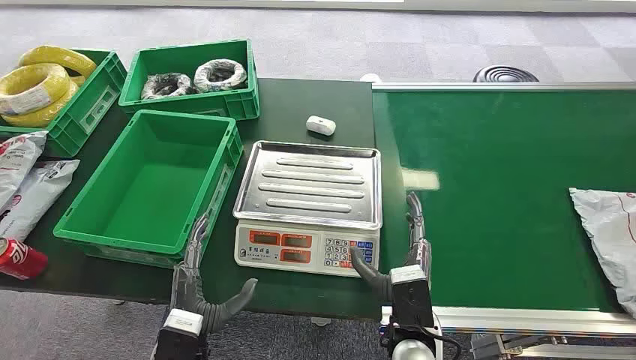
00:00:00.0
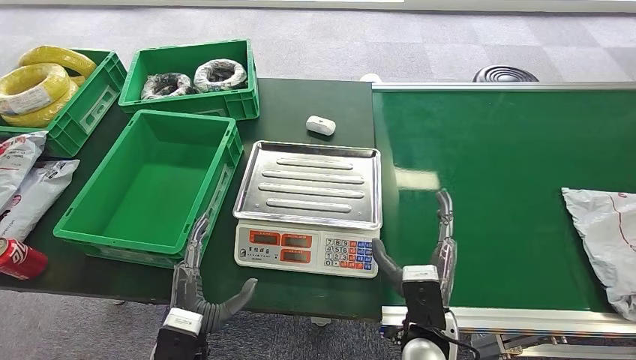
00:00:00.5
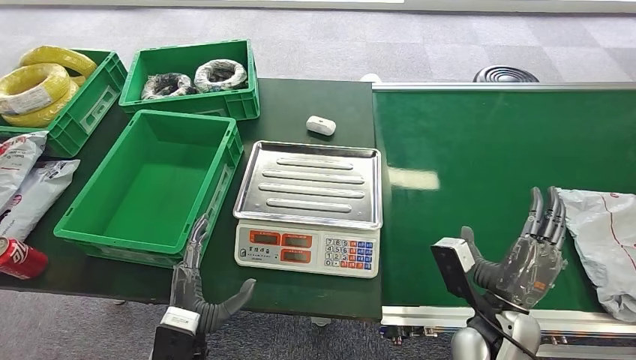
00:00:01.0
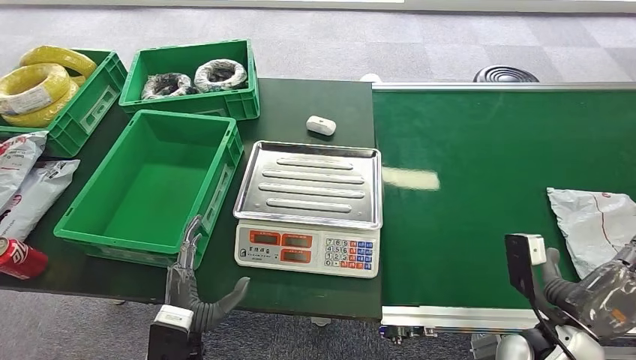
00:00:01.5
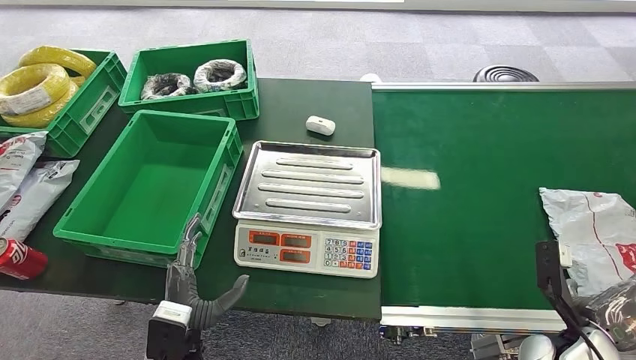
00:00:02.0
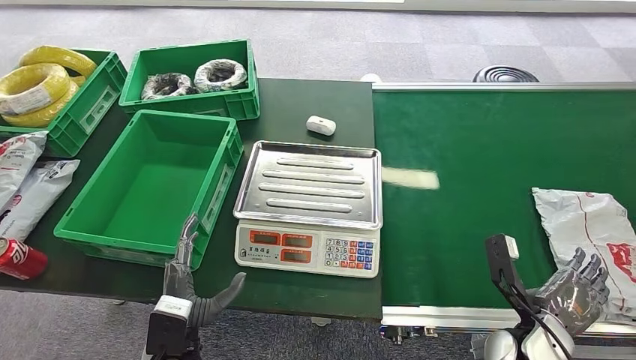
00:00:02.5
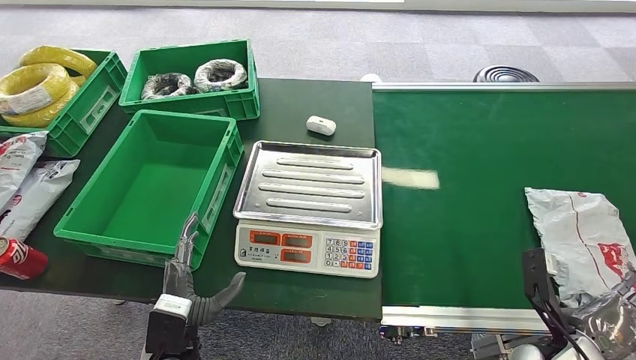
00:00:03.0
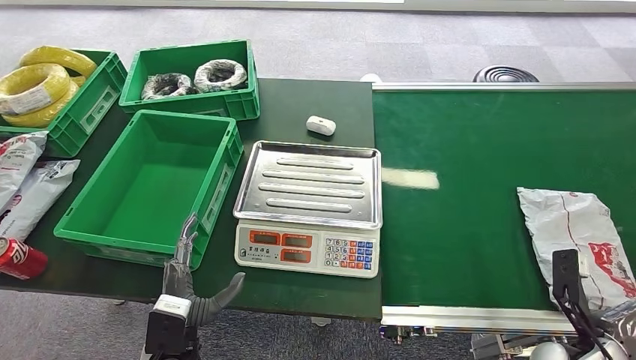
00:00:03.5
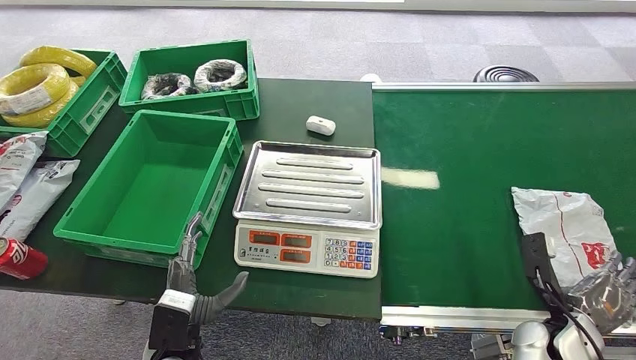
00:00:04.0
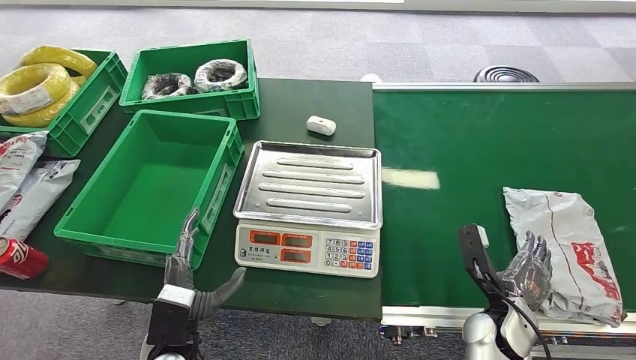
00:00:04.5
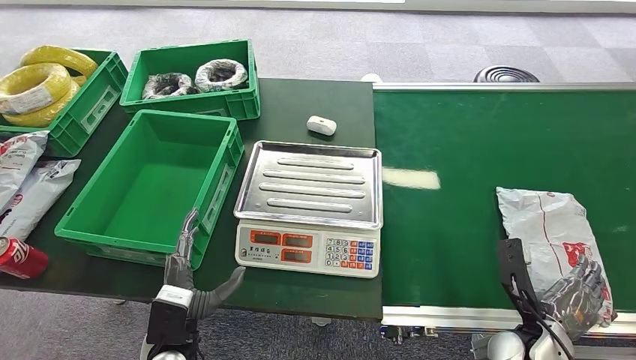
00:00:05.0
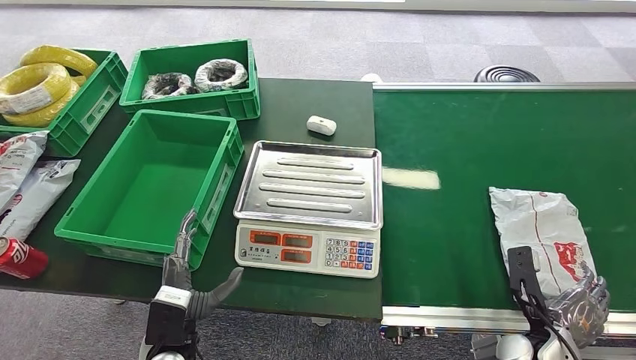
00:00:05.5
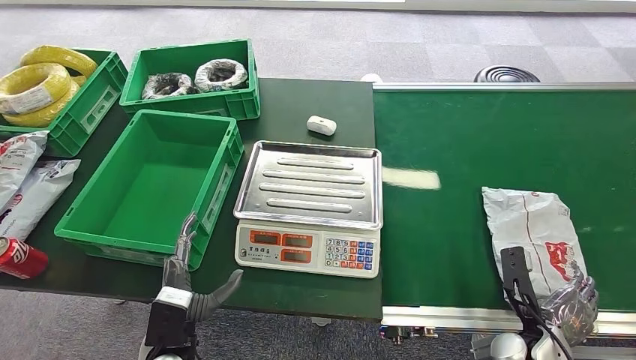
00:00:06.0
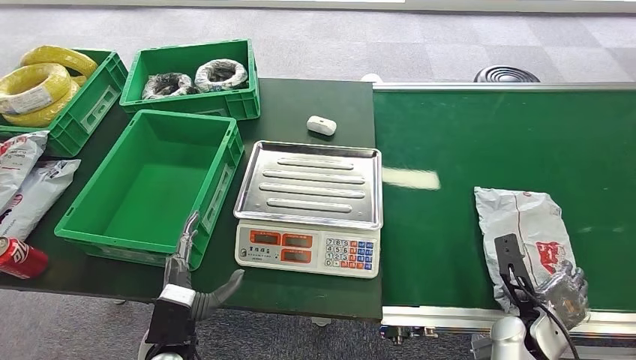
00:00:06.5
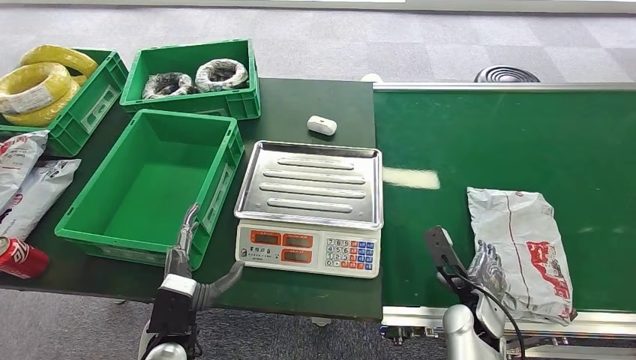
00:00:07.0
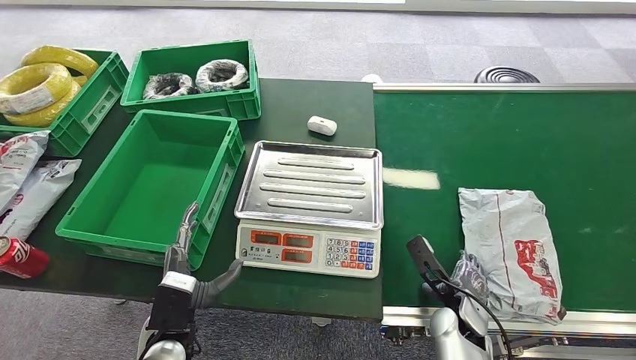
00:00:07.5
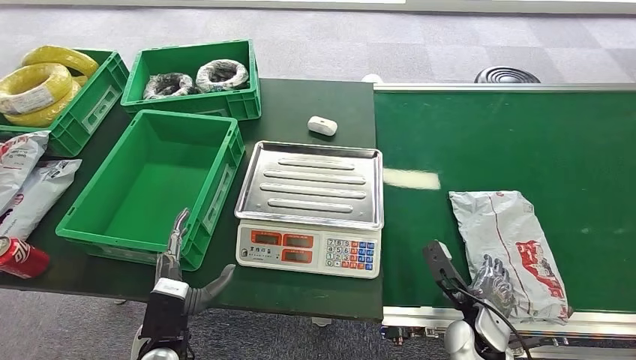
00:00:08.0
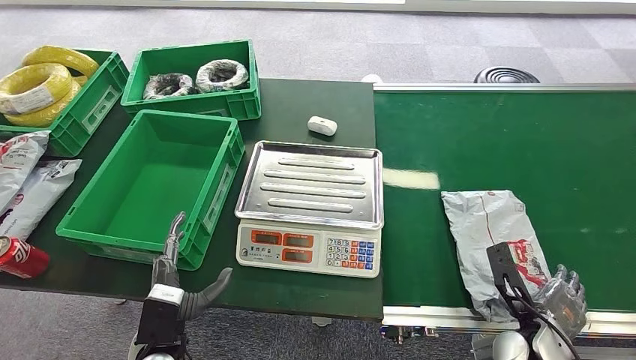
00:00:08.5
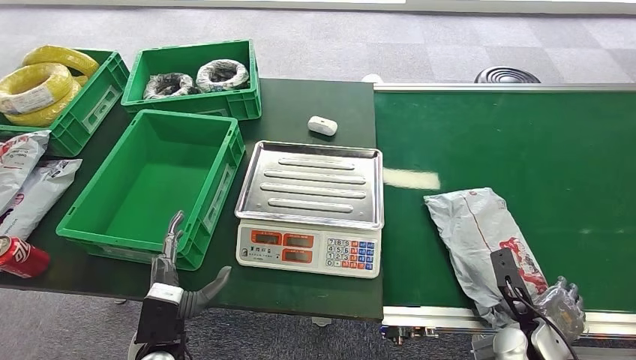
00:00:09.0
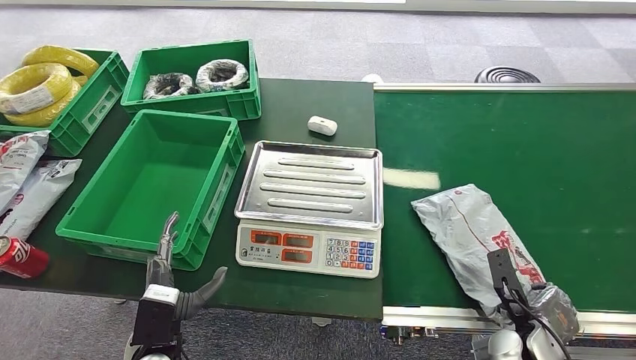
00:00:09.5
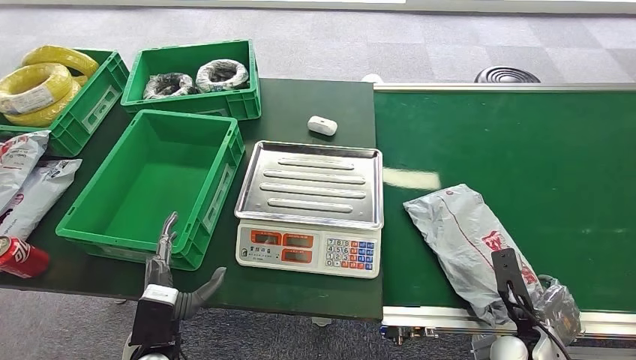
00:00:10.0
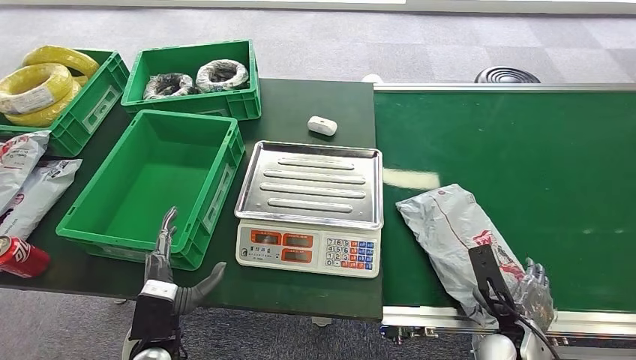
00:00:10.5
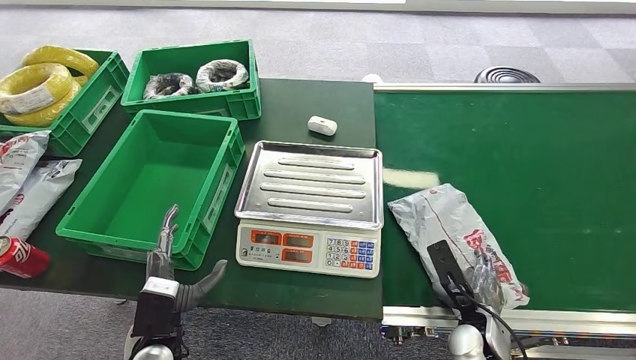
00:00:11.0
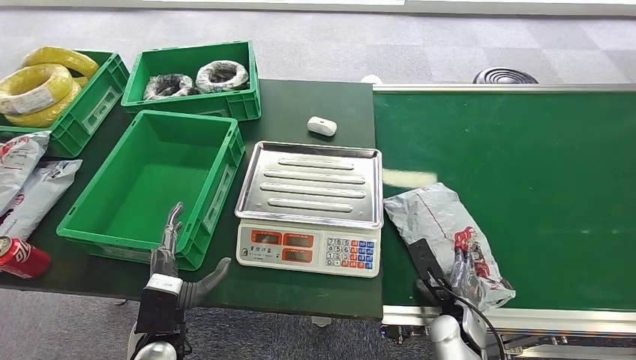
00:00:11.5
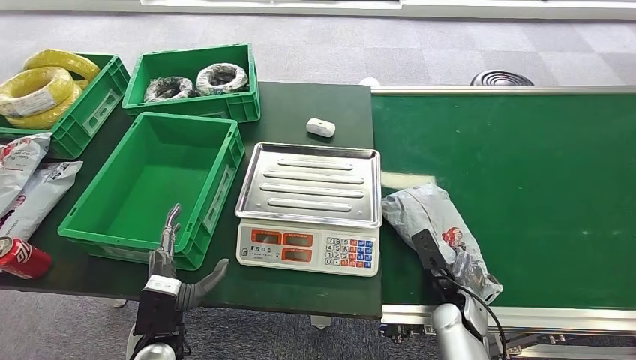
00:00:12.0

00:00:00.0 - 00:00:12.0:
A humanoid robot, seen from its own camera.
00:00:02.0 - 00:00:04.0: The right hand reaches approximately 5 cm to the left, then returns.
00:00:04.0 - 00:00:06.0: The right hand travels to the left and back again, some 10 cm each way.
00:00:06.0 - 00:00:08.0: The right hand goes approximately 10 cm to the left.
00:00:08.0 - 00:00:10.0: The right hand goes approximately 10 cm to the right.

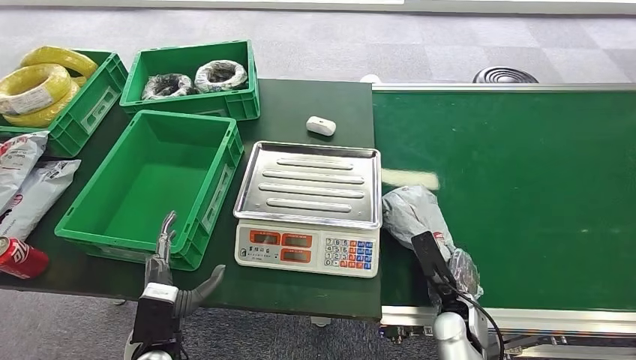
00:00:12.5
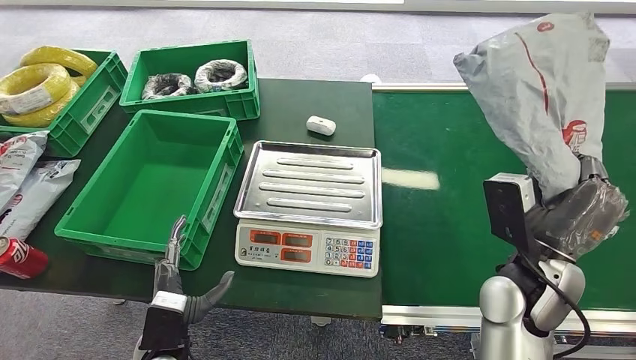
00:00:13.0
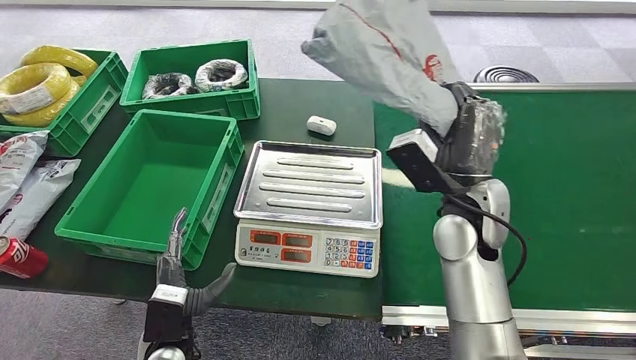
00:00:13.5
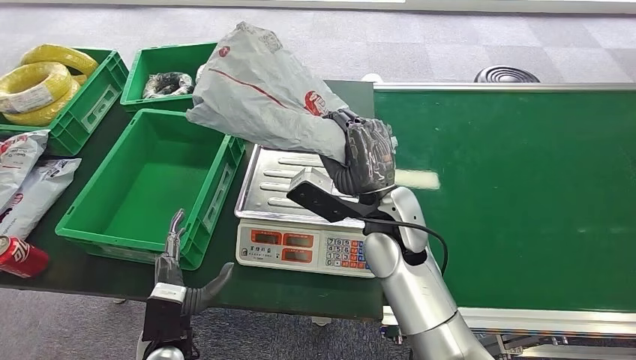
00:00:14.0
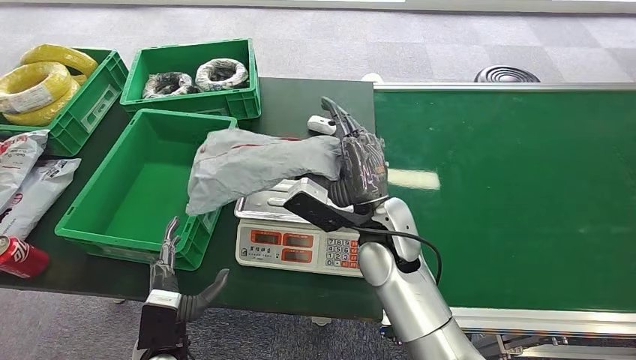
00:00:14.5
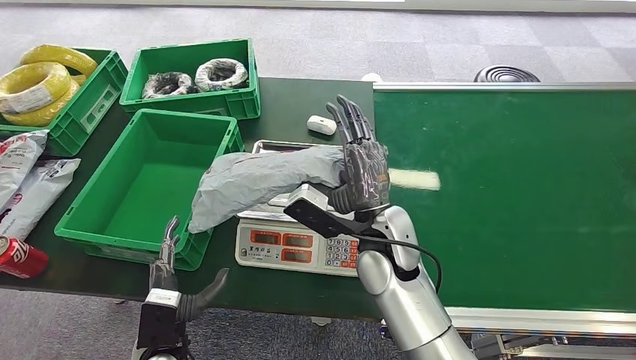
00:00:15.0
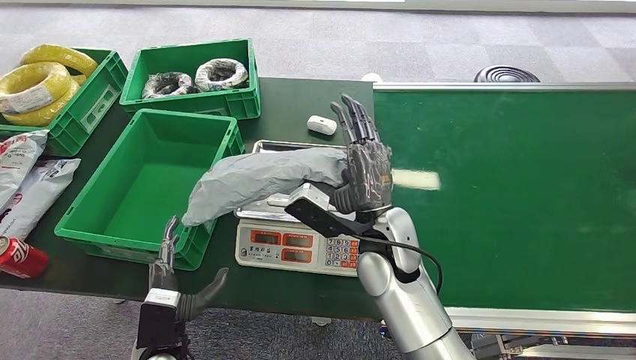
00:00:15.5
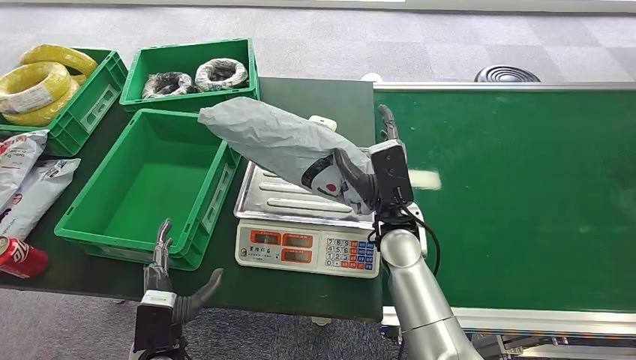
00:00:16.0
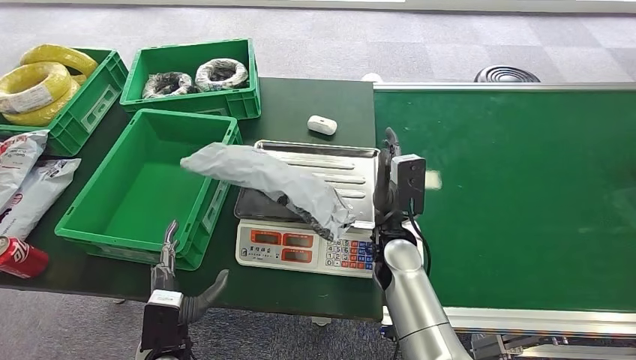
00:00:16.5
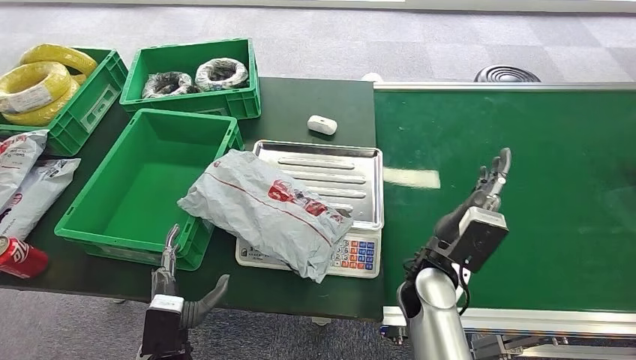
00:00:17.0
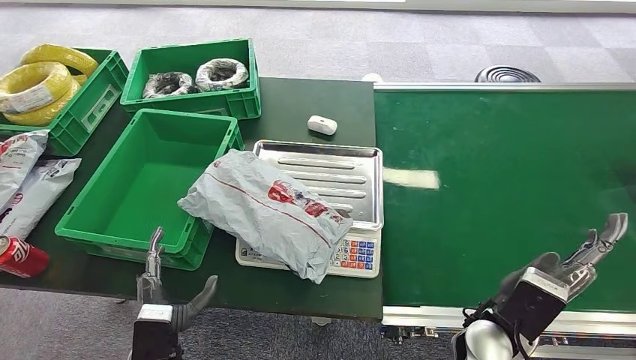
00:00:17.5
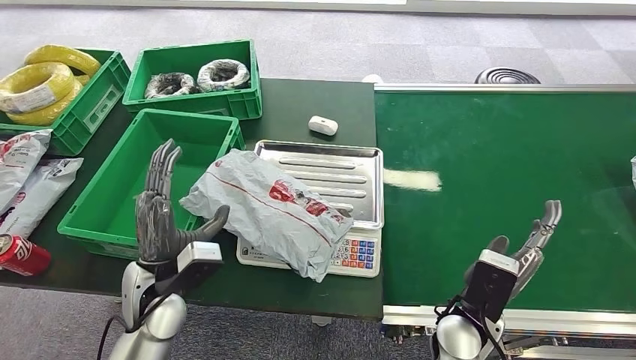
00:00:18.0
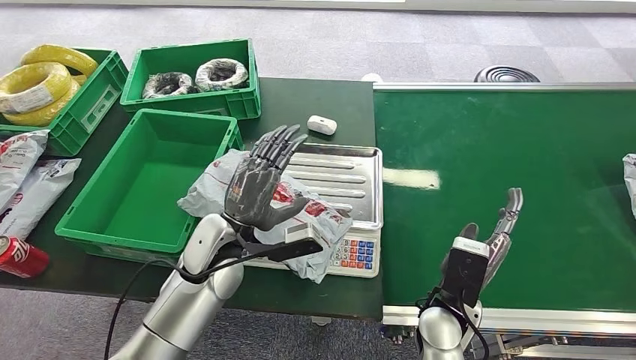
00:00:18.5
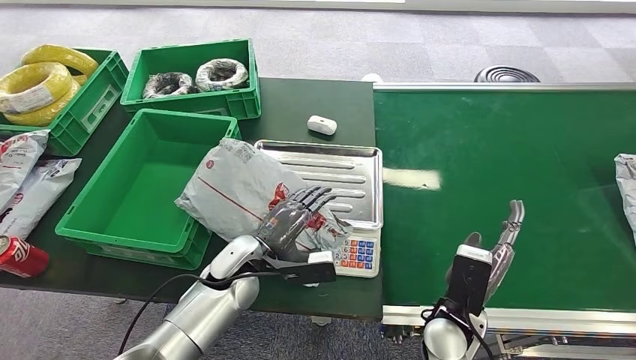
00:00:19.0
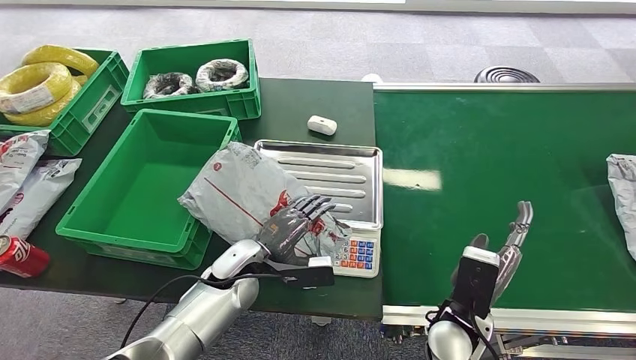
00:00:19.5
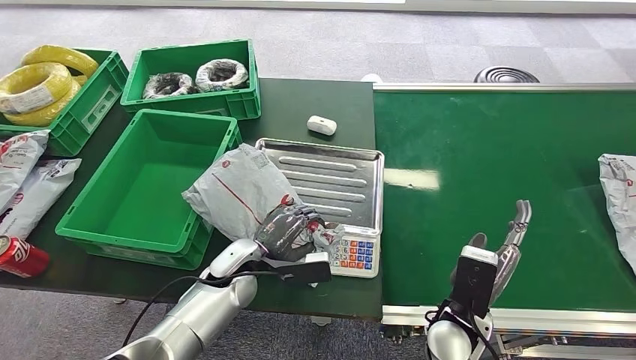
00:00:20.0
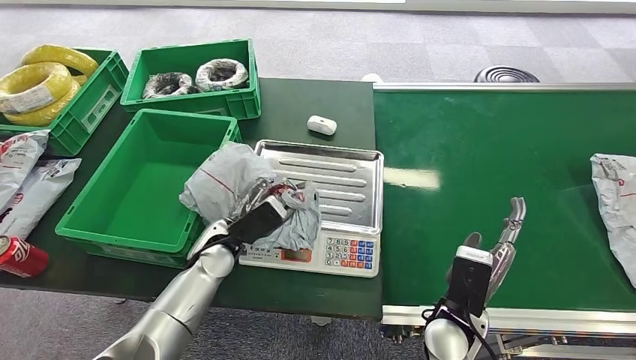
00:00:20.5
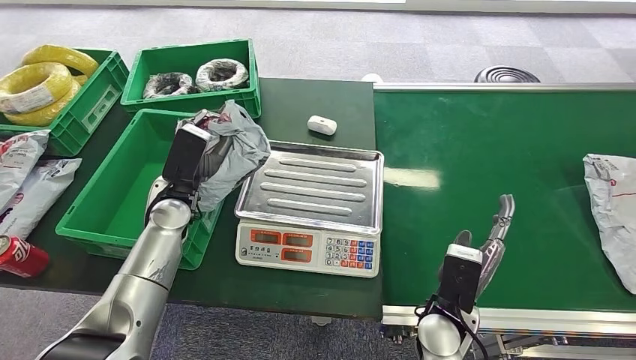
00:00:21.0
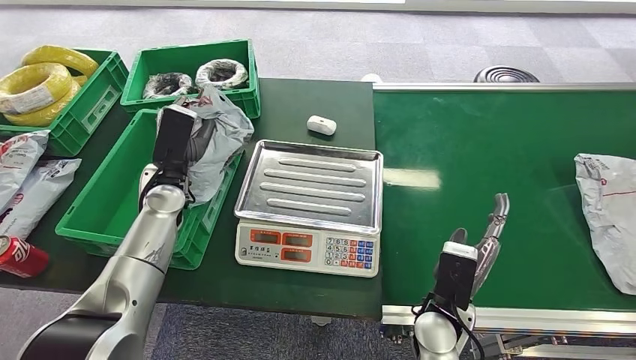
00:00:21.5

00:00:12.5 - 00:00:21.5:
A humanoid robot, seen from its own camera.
Step, 00:00:13.0 - 00:00:16.0: Place the package onto the inbound machine.
Step, 00:00:17.0 - 00:00:20.5: Pick up the package from the inbound machine.
Step, 00:00:21.0 - 00:00:21.5: Place the package into the parcel locker.
00:00:14.5 - 00:00:17.0: The right hand goes some 10 cm to the right and downward.
